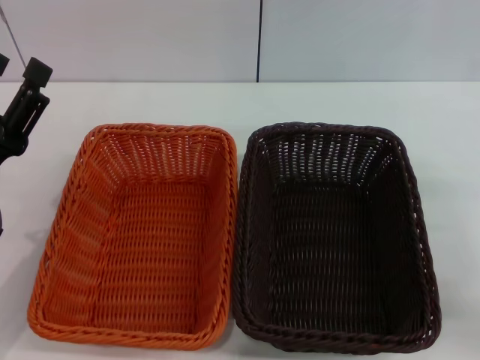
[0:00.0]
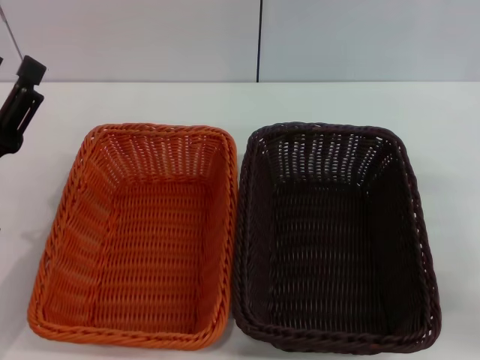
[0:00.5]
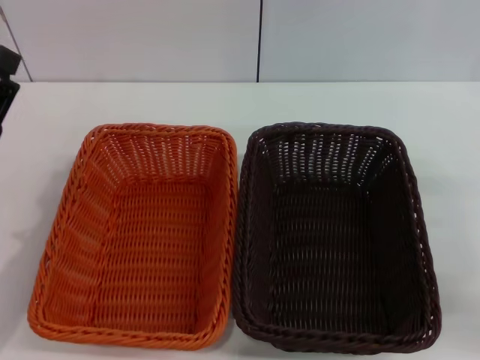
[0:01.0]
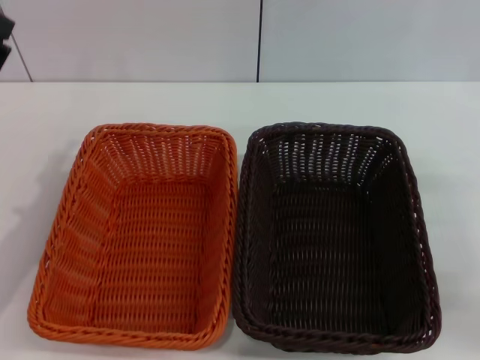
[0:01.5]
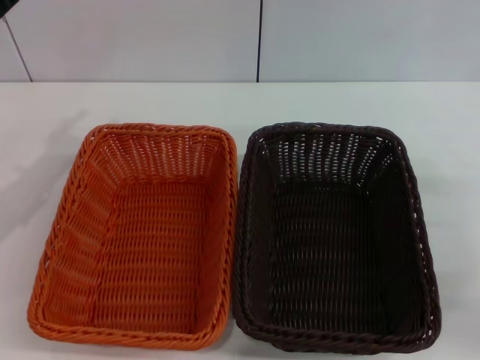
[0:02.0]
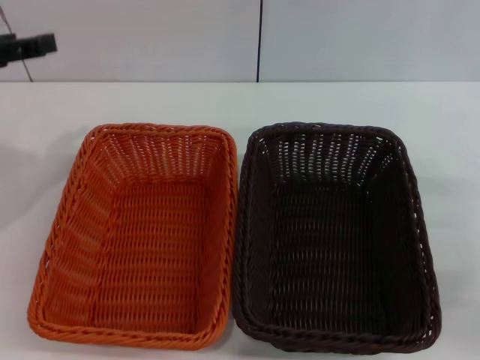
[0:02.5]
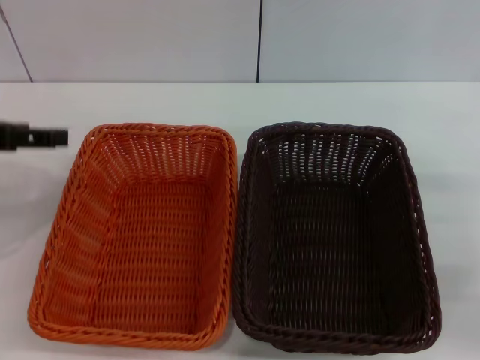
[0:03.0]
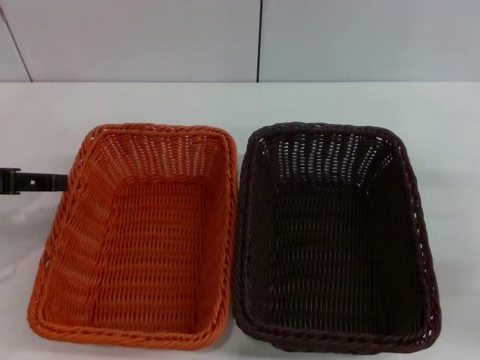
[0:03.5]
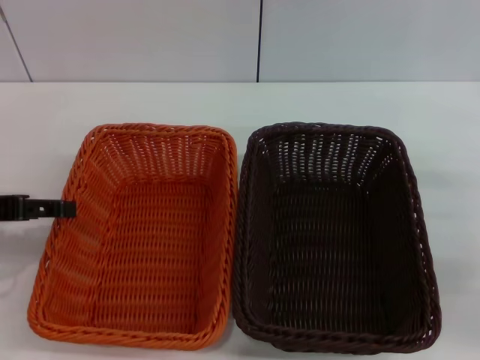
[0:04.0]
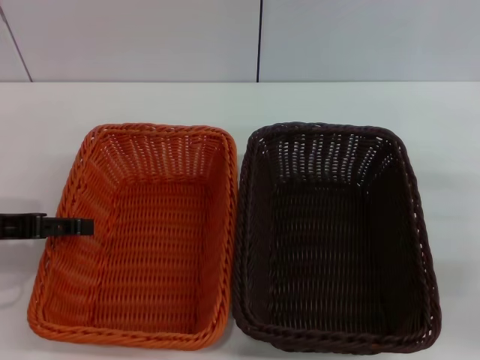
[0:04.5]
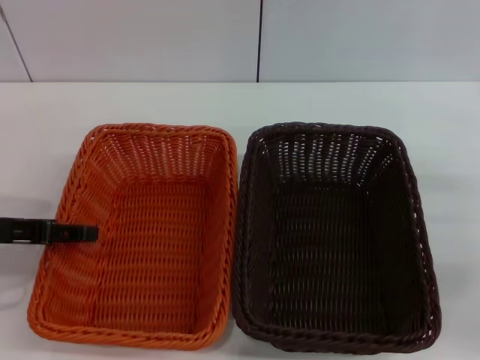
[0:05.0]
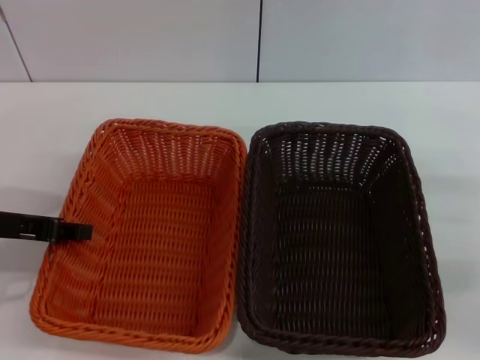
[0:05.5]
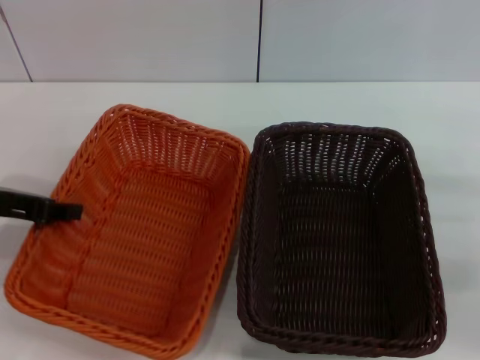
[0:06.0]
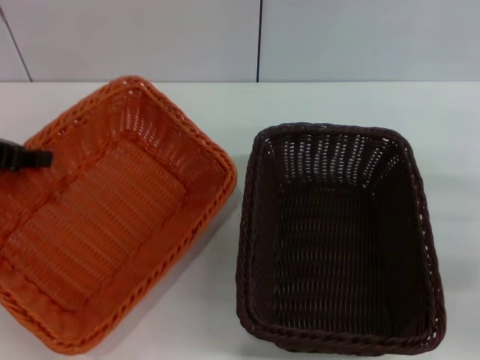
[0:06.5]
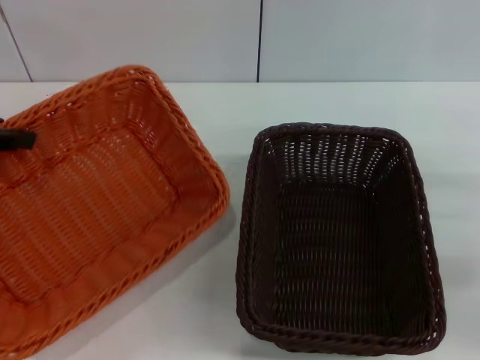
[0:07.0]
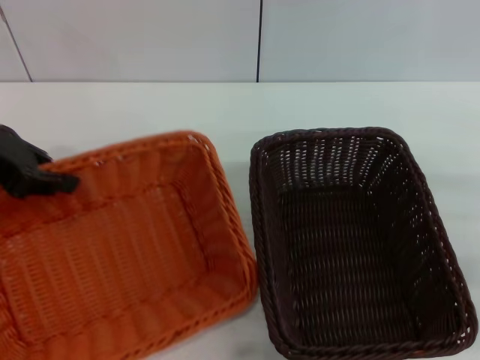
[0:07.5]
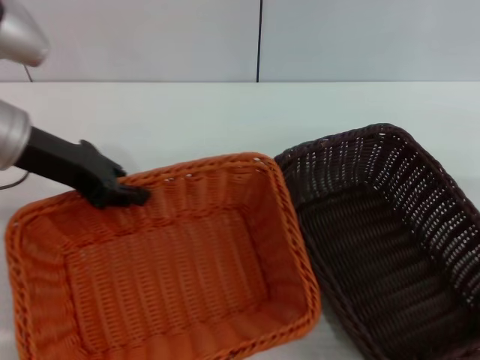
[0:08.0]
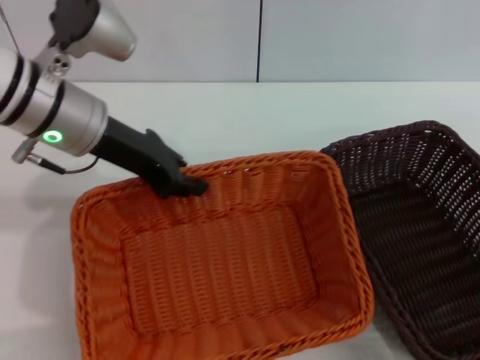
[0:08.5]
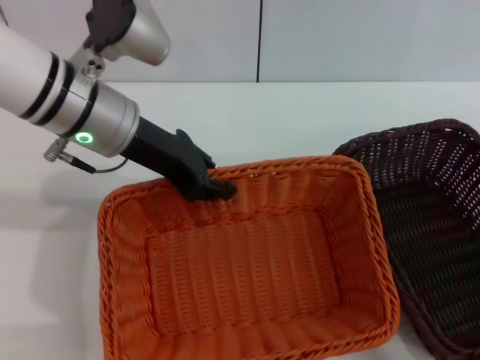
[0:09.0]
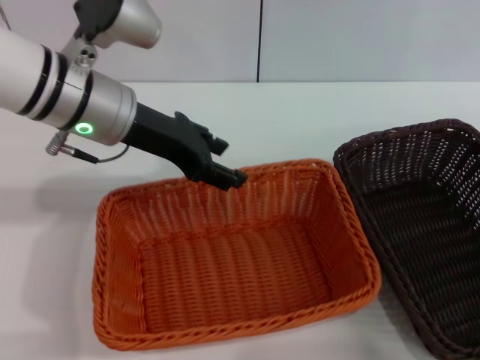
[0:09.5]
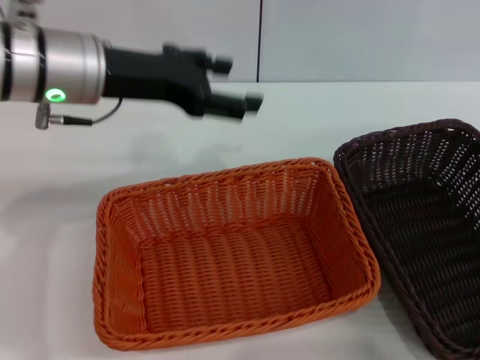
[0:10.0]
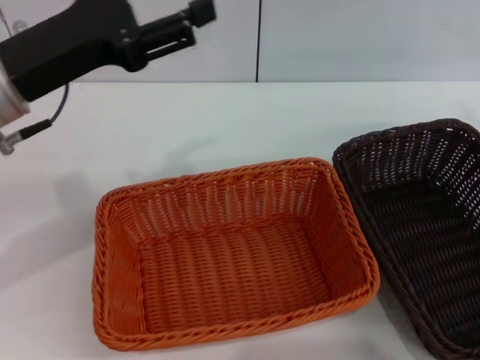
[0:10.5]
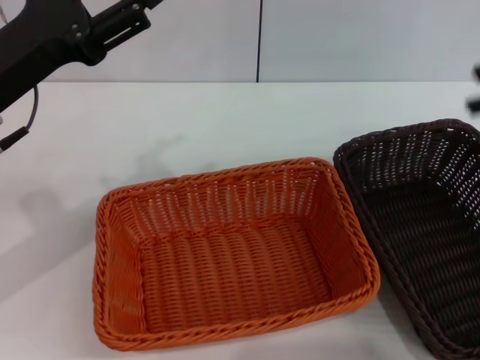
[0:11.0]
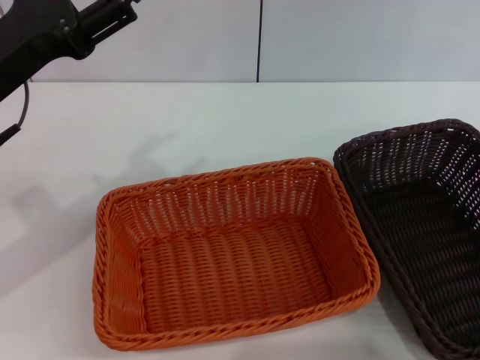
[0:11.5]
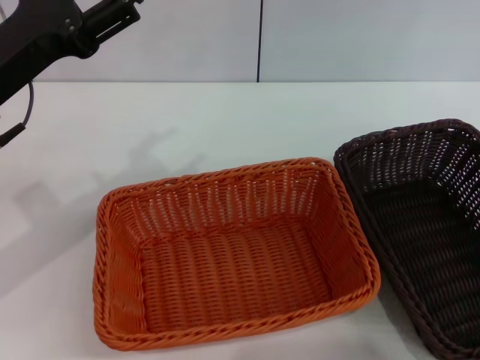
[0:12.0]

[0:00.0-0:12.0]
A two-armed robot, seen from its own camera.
Step, 0:00.0 to 0:05.5: Grasp the light basket with left gripper.
Step, 0:06.0 to 0:09.5: Place the light basket in the center of the table with left gripper.
0:00.0 to 0:02.0: The left gripper heads forward, upward and to the left, covering some 10 cm.
0:02.0 to 0:04.0: The left gripper moves about 10 cm upward and comes back.
0:04.0 to 0:06.0: The left gripper closes its fingers.
0:06.0 to 0:08.0: The left gripper travels to the right and forward by some 10 cm.
0:08.0 to 0:10.0: The left gripper heads to the right, covering approximately 5 cm, and opens.
0:10.0 to 0:12.0: The right gripper travels upward and to the left by roughly 15 cm; the left gripper shifts some 10 cm to the left and backward.

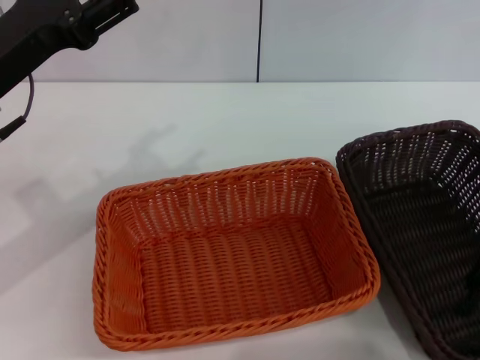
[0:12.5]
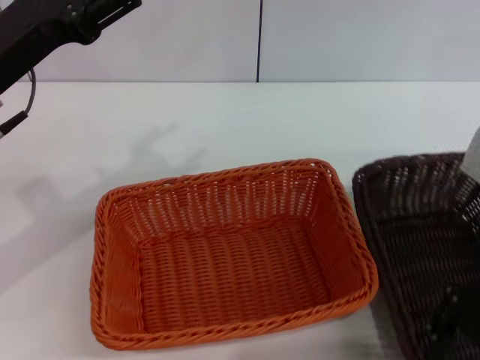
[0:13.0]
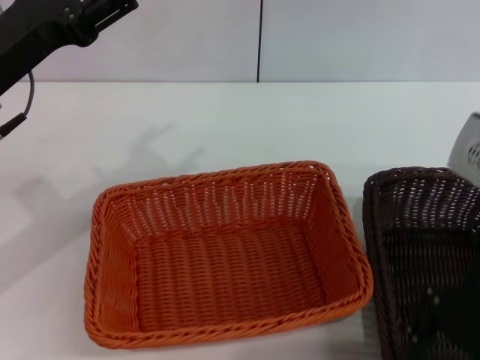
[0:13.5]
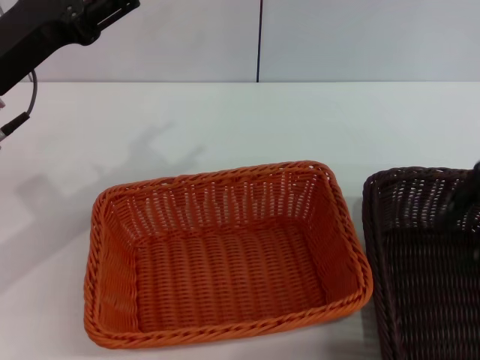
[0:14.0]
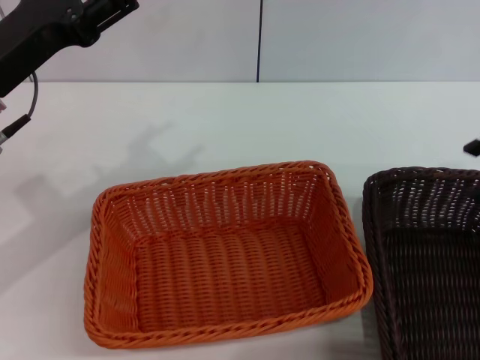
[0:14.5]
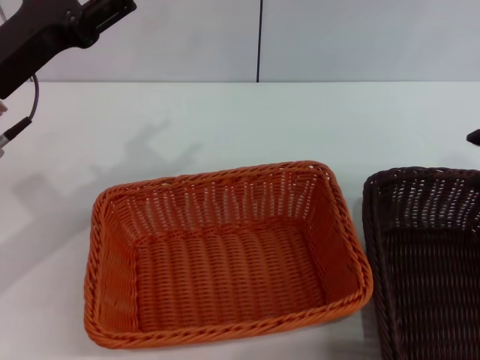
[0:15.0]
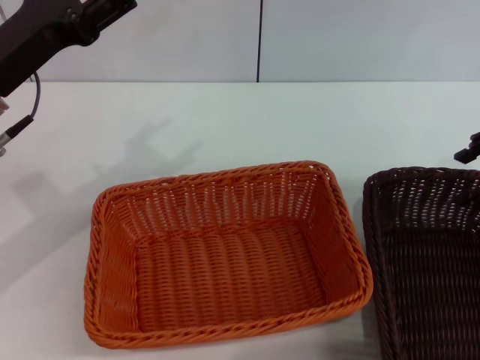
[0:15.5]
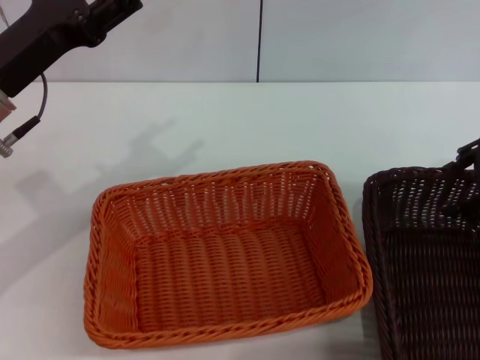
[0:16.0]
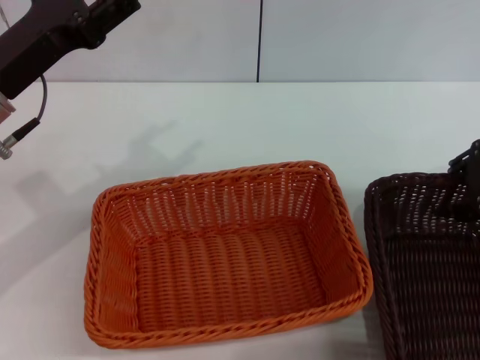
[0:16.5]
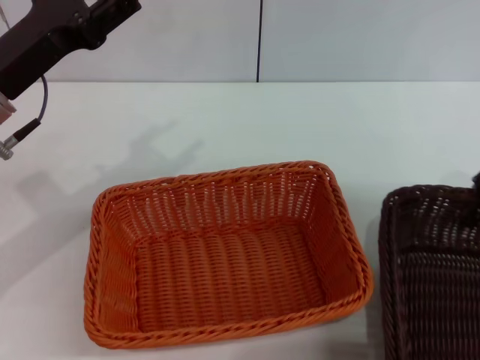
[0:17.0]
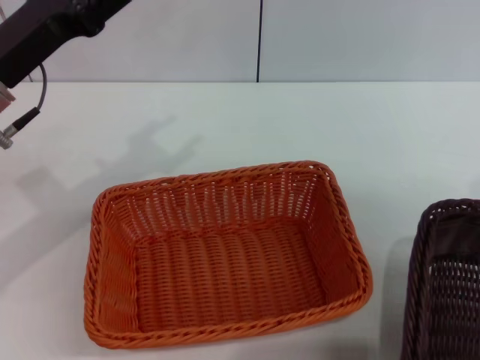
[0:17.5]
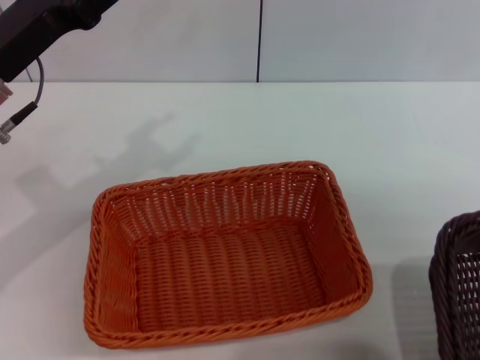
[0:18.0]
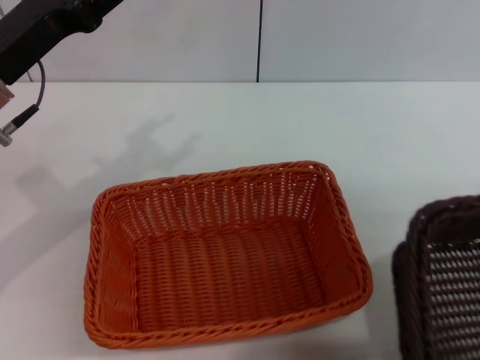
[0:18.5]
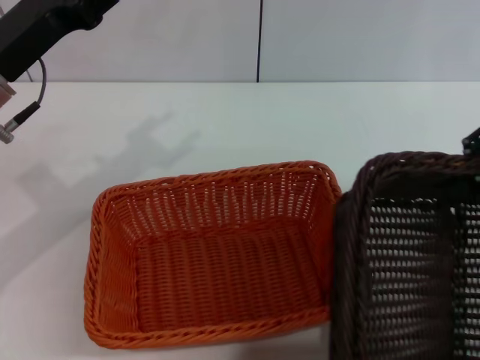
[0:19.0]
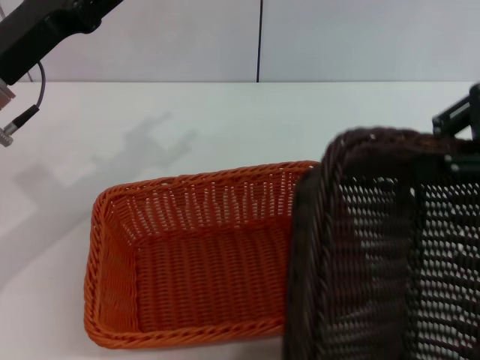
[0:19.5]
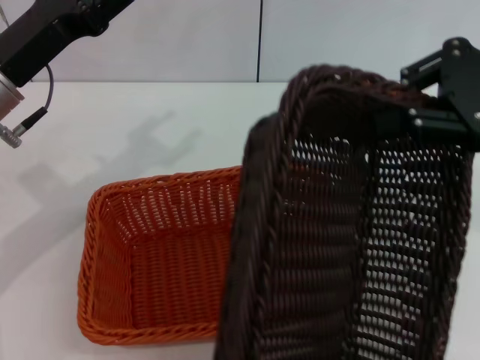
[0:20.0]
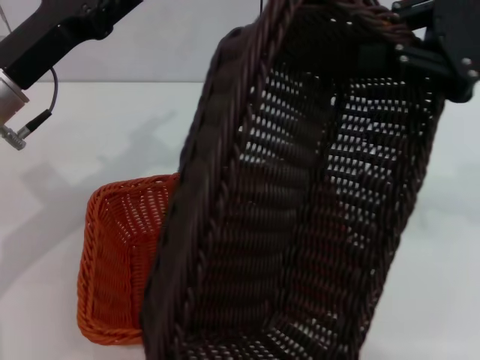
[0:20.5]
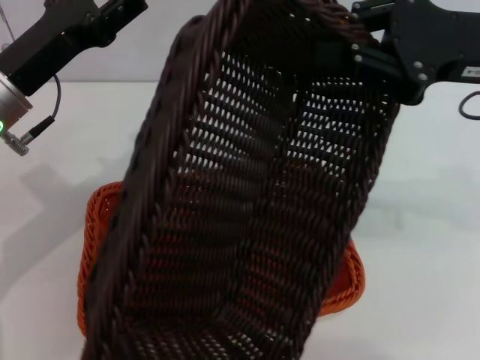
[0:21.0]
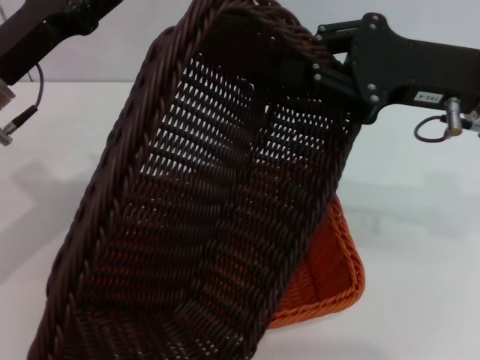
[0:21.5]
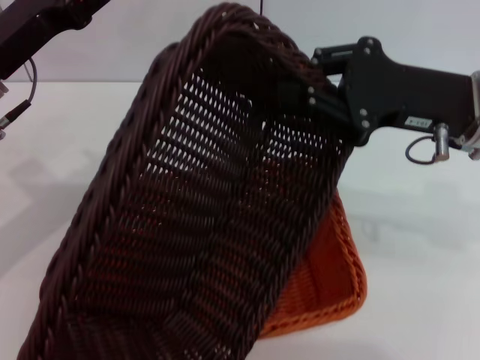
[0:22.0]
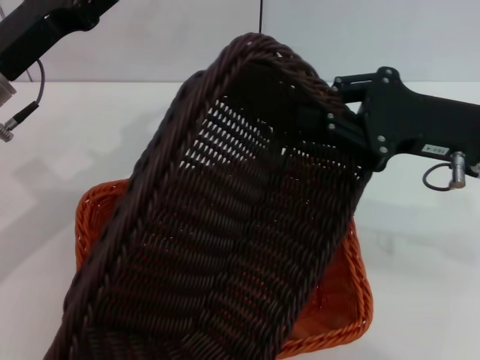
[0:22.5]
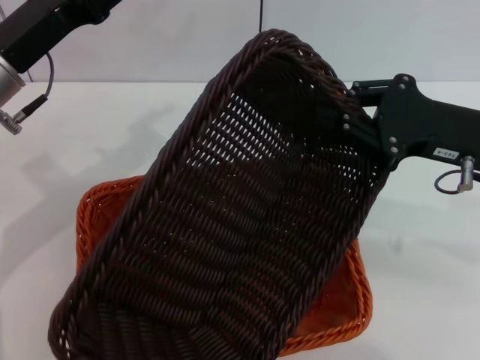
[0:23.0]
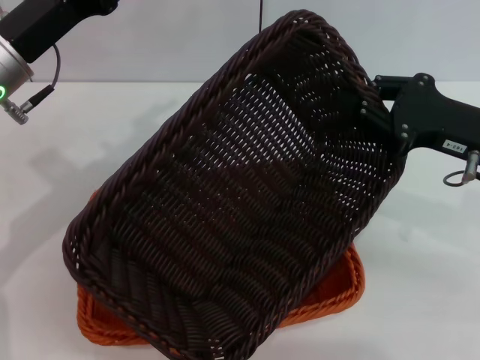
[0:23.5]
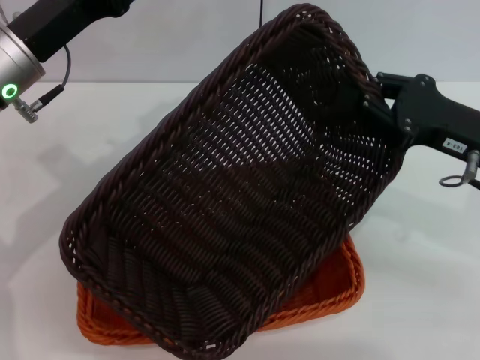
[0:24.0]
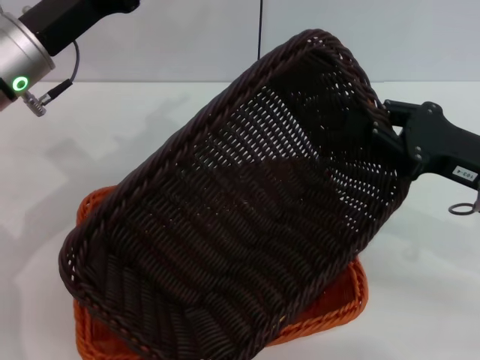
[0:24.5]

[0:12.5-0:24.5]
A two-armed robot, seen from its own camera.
Step, 0:12.5 to 0:16.5: Grasp the dark basket with right gripper.
0:12.5 to 0:14.5: The right gripper moves upward, roughly 10 cm.
0:14.5 to 0:16.5: The right gripper travels downward by roughly 10 cm.
0:16.5 to 0:18.5: The right gripper goes approximately 10 cm upward, and closes its fingers.
0:18.5 to 0:20.5: The right gripper travels to the left by about 10 cm.
0:20.5 to 0:22.5: The right gripper shifts some 10 cm downward.
0:22.5 to 0:24.5: The right gripper moves some 5 cm.

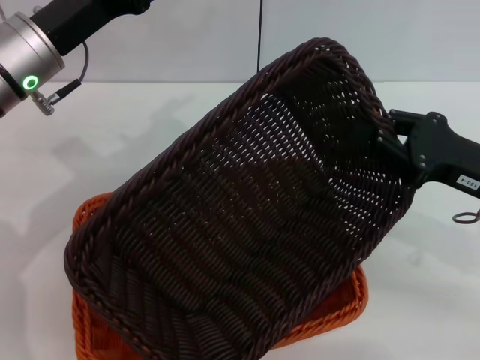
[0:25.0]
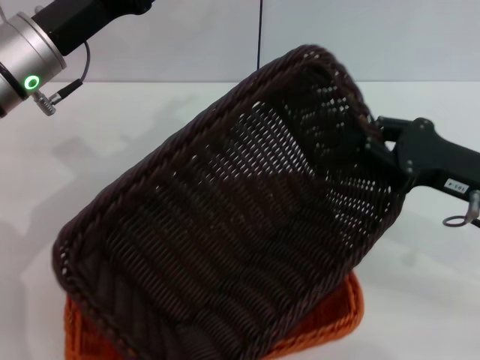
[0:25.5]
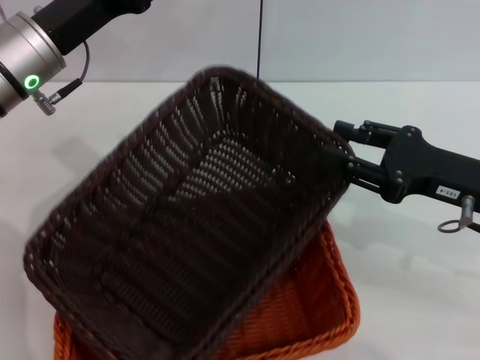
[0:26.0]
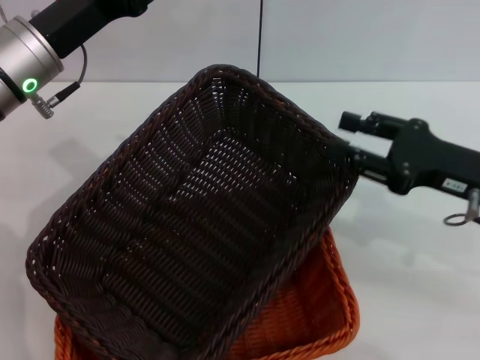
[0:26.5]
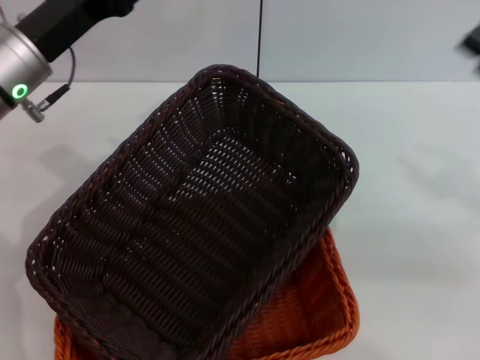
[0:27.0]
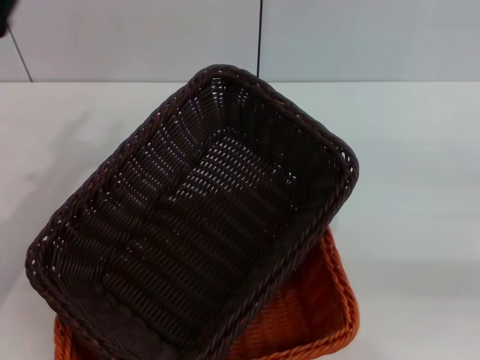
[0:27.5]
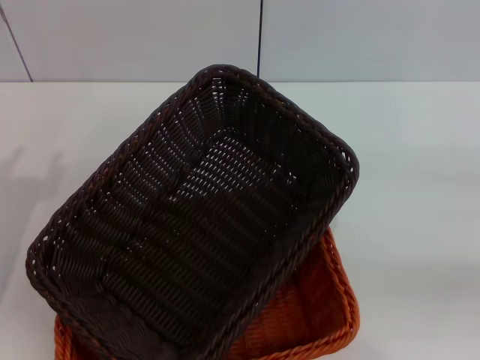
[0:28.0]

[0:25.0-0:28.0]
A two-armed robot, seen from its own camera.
0:25.0 to 0:26.5: The right gripper opens its fingers.
0:26.5 to 0:28.0: The right gripper moves to the right, approximately 15 cm, while the left gripper is displaced backward, to the left and downward by about 15 cm.
